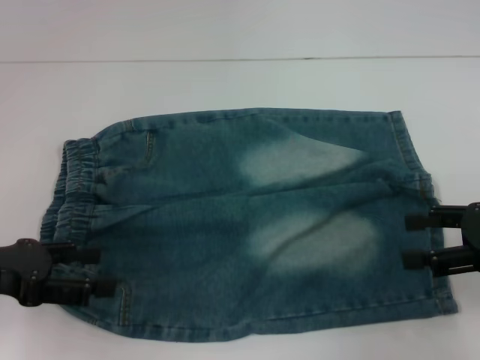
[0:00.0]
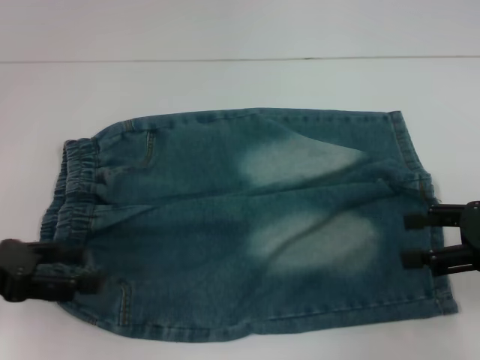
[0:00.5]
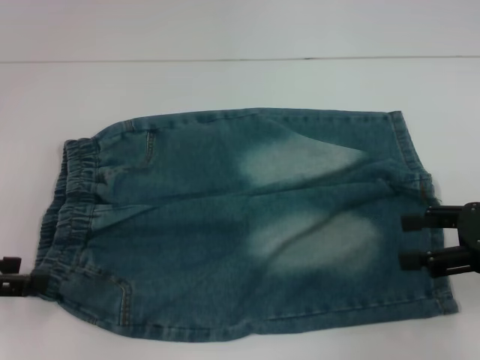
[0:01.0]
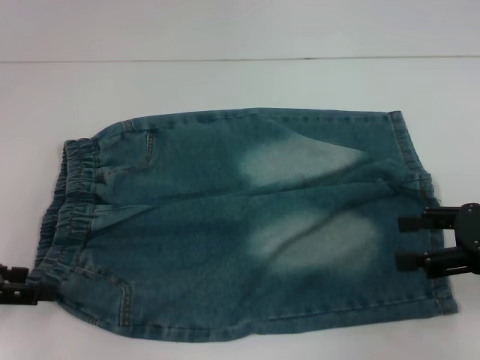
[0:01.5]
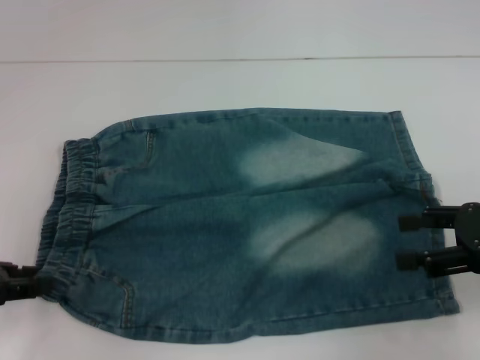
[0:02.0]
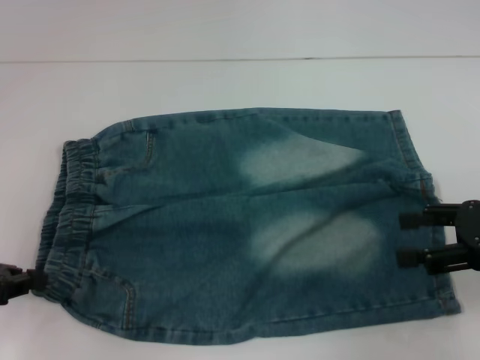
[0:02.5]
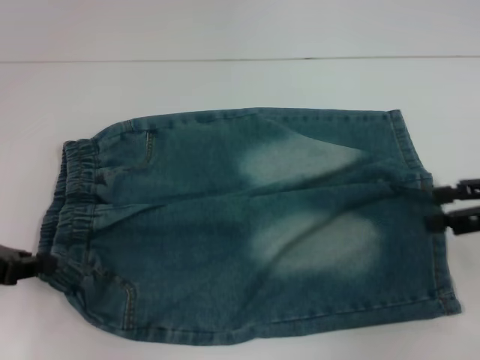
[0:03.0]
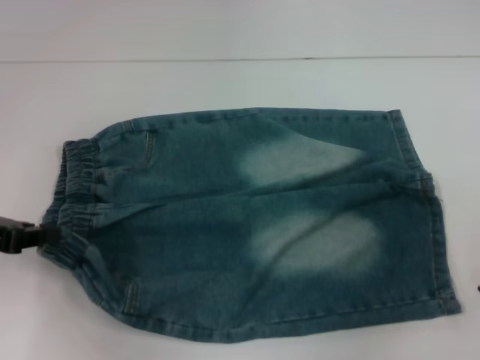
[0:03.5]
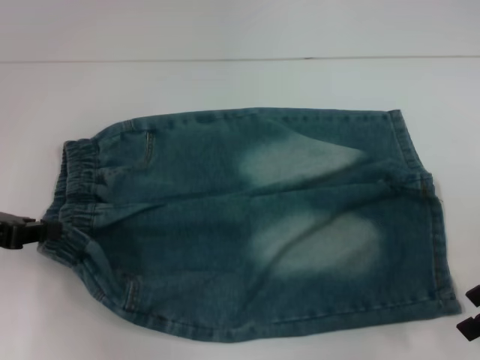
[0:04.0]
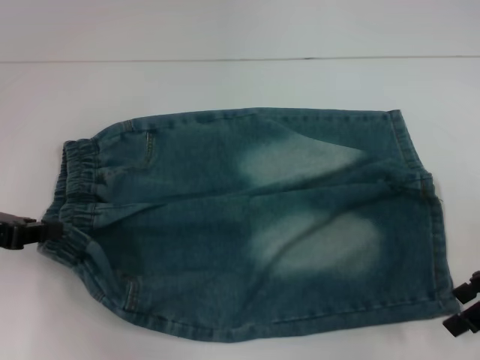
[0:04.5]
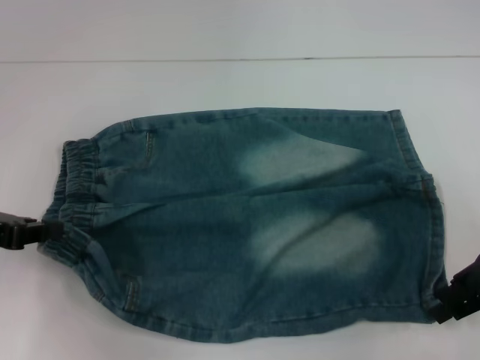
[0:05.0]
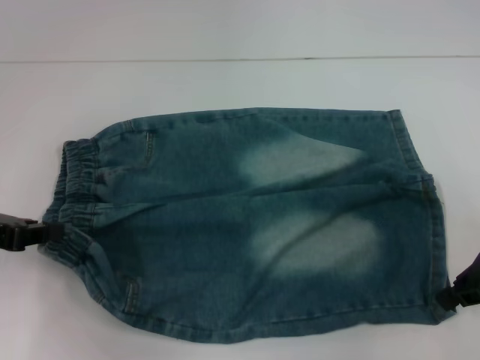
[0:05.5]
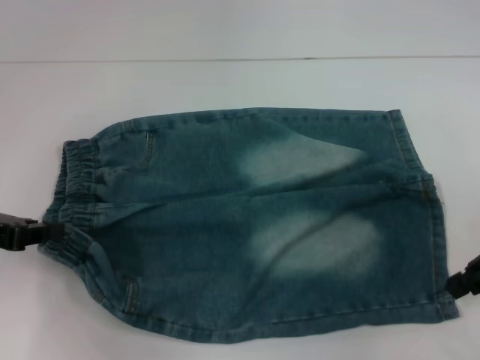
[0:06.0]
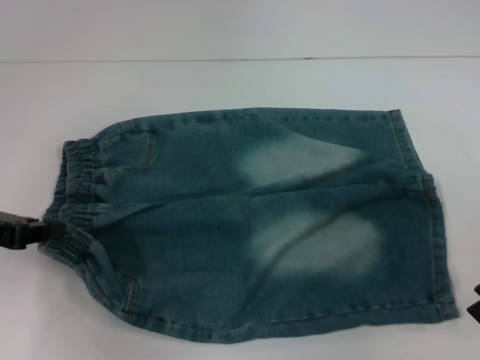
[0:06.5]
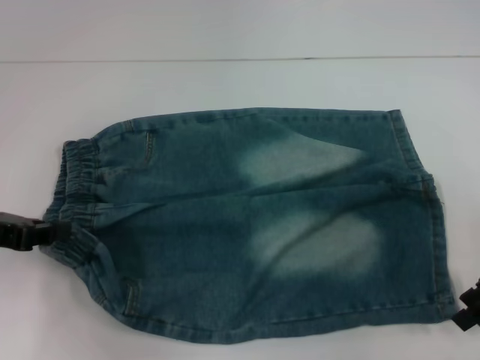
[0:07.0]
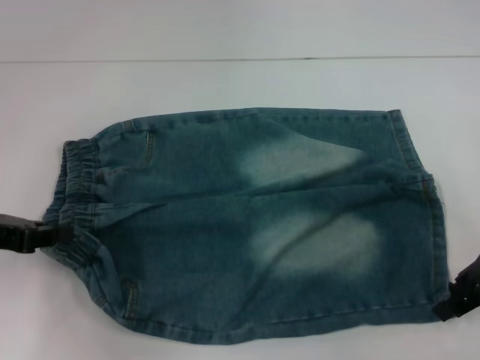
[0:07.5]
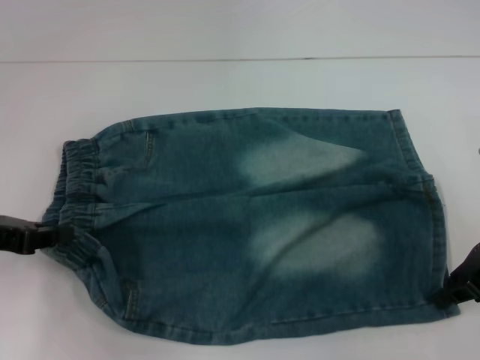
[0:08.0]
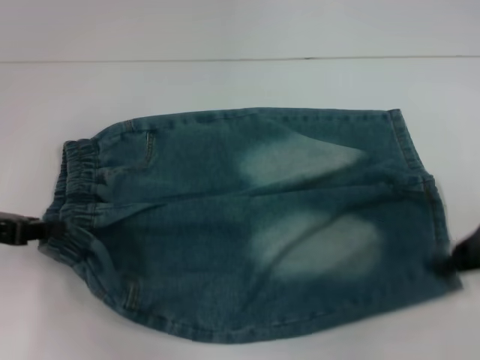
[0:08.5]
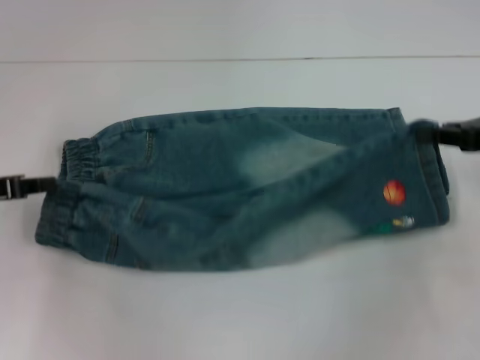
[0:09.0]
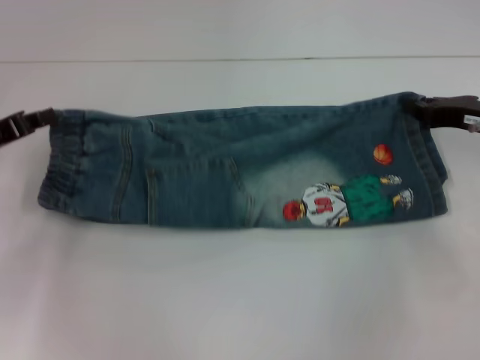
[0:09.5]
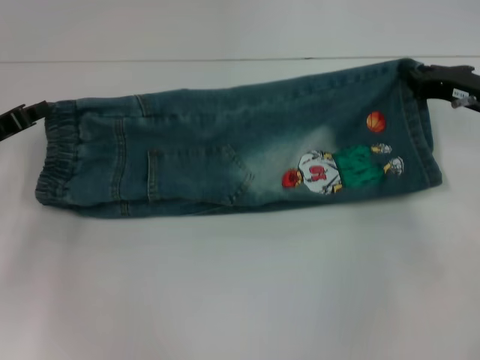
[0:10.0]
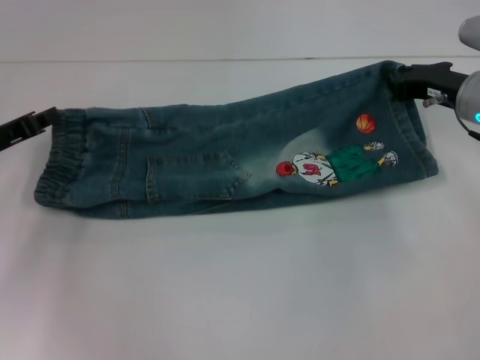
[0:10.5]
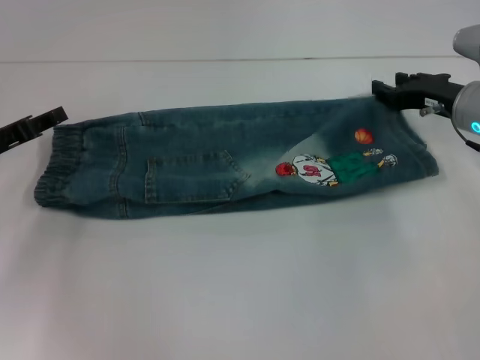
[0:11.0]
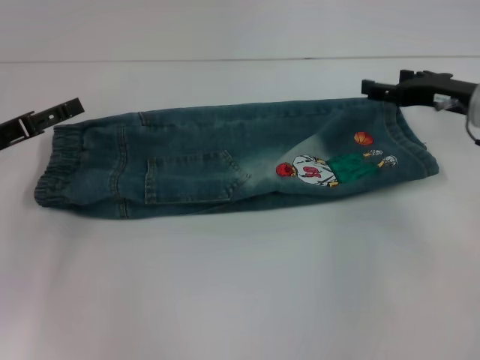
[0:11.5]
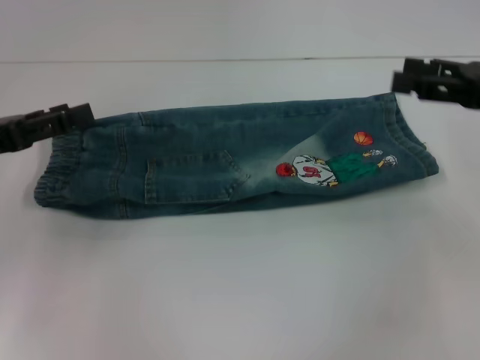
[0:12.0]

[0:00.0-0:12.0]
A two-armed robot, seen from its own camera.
Step, 0:00.0 to 0:02.5: Hold the lower left waistband with your left hand.
Step, 0:03.0 to 0:08.0: Grab the lower right pant leg with your right hand.
Step, 0:08.5 to 0:11.0: Fold upward with your right hand.
0:00.0 to 0:02.0: The left gripper closes its fingers.
0:02.0 to 0:04.0: The left gripper closes.
0:04.0 to 0:06.0: The right gripper closes.
0:06.0 to 0:08.0: The right gripper opens, then closes once more.
0:08.0 to 0:10.0: The grippers both shift forward by about 5 cm.
0:10.0 to 0:12.0: The left gripper ends up approximately 5 cm from where it was, and opens. The right gripper moves upward and backward, about 10 cm, and opens its fingers.

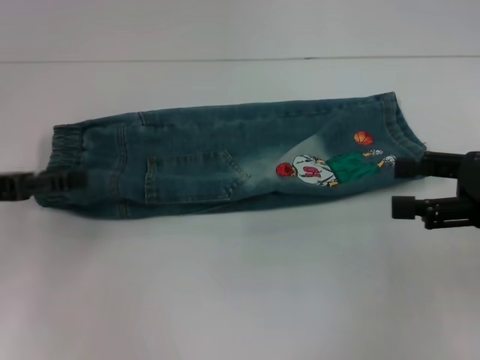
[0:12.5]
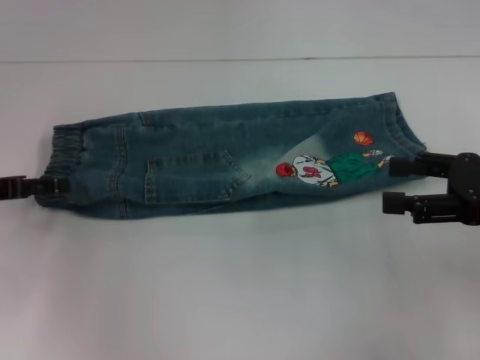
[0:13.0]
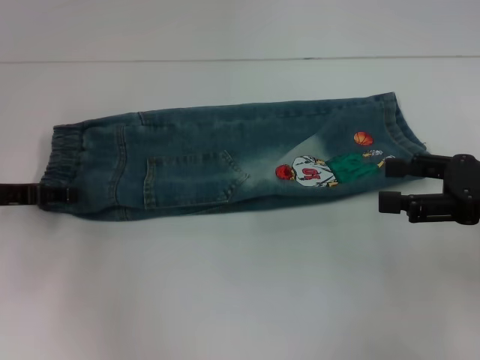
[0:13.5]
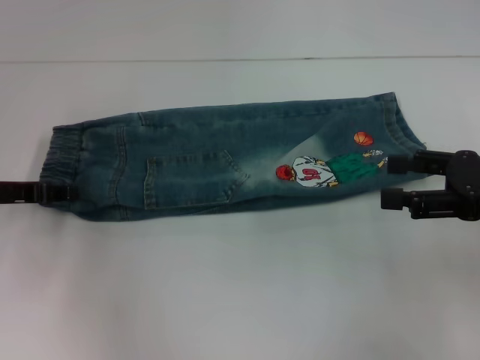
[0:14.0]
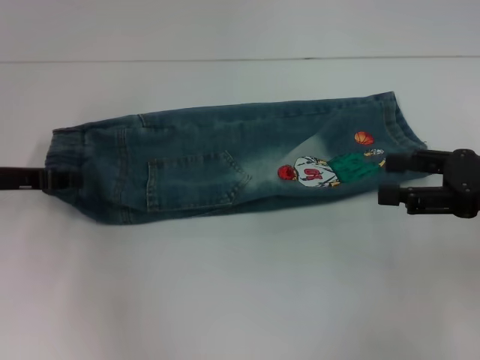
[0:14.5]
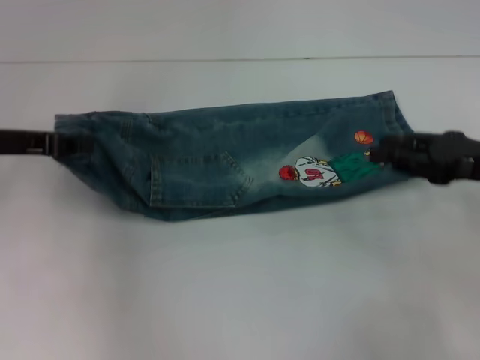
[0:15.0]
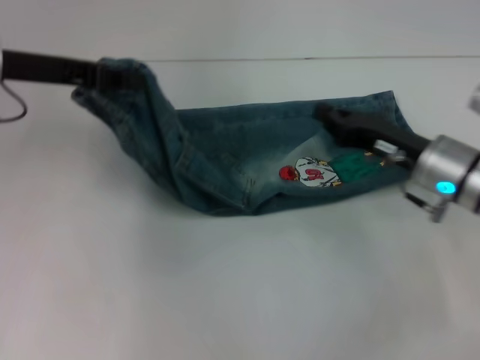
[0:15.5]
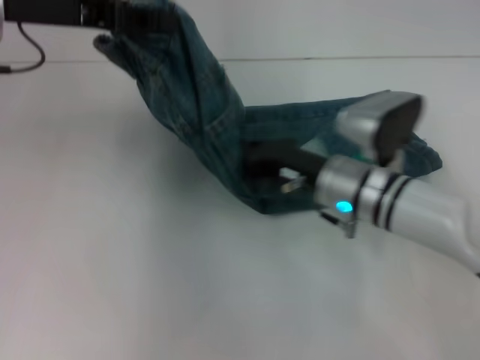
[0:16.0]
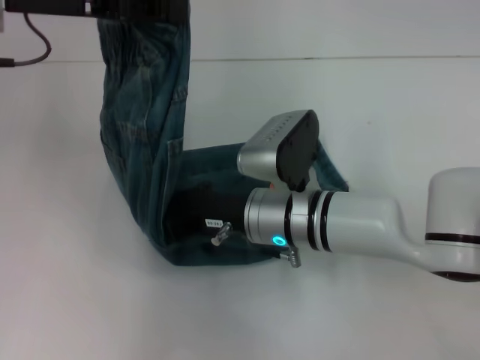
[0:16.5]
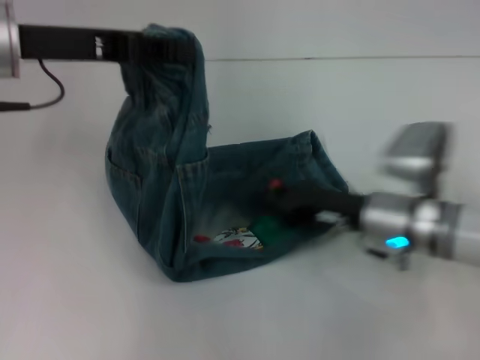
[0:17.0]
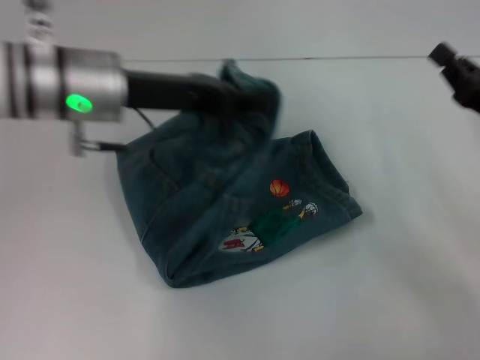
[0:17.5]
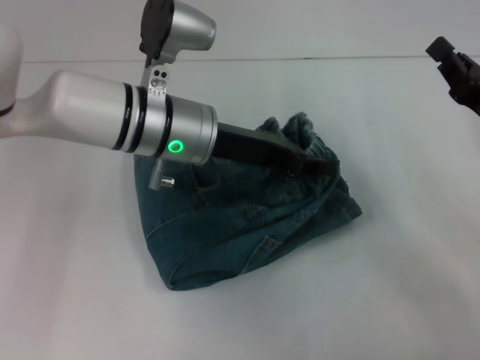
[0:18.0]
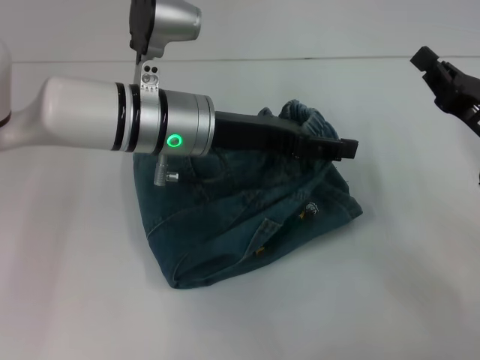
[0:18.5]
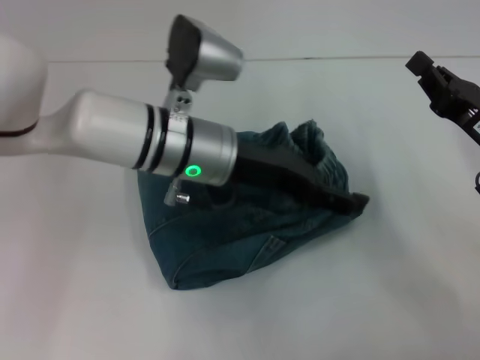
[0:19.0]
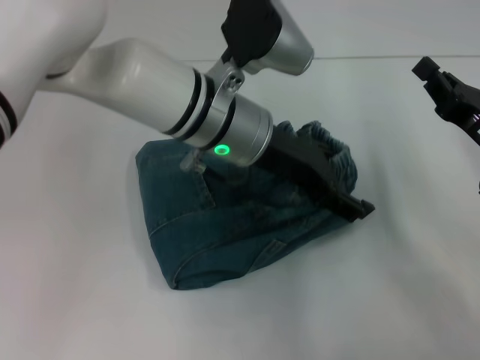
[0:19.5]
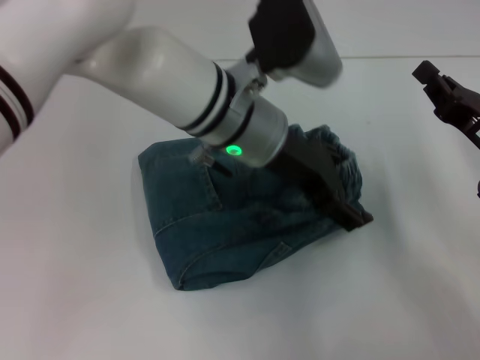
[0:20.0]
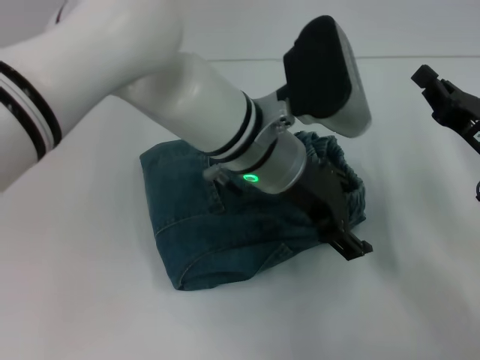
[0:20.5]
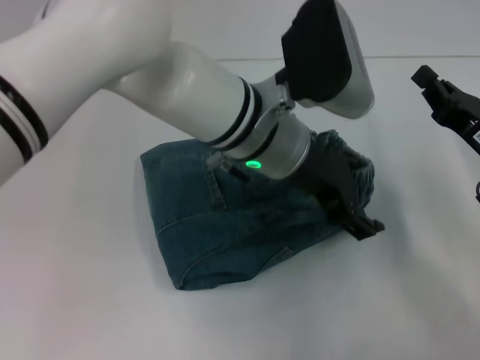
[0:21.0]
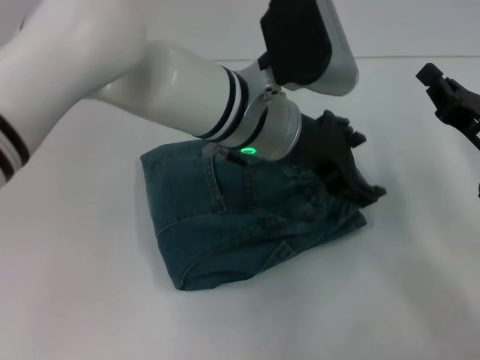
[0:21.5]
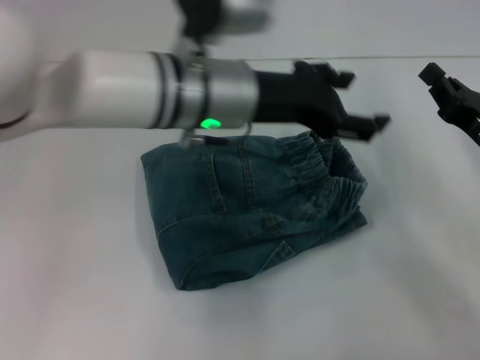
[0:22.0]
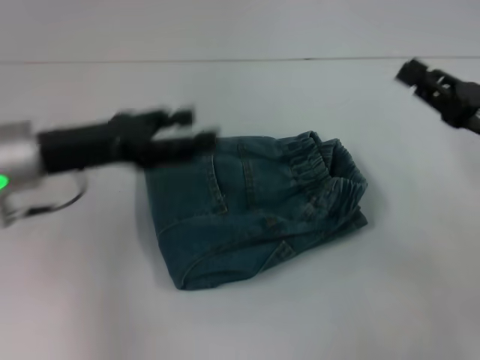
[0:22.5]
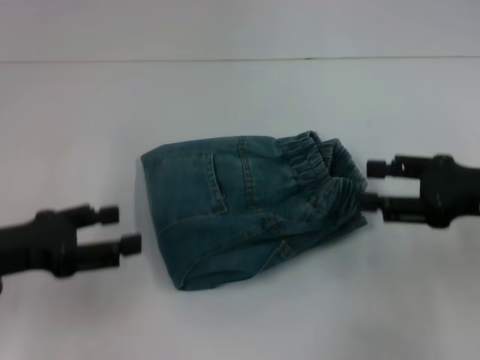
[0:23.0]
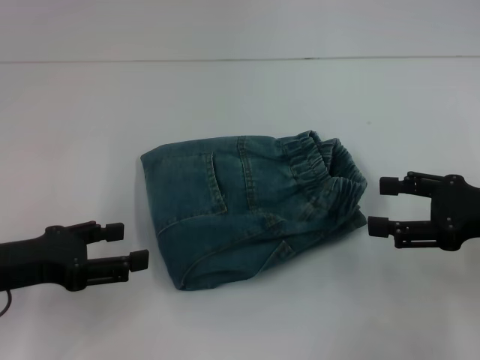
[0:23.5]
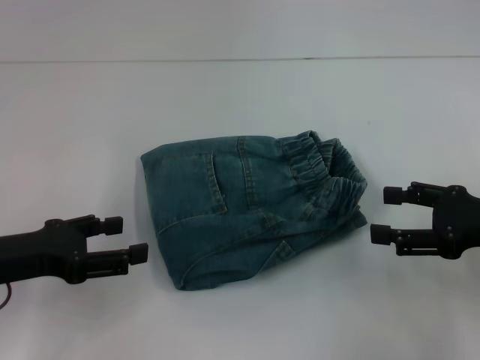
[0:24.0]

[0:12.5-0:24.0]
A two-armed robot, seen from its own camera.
Step, 0:12.5 to 0:14.5: Hold the waistband with your left hand.
Step, 0:15.0 to 0:16.5: Press the middle of the pants with your right hand.
Step, 0:17.0 to 0:21.5: Fold to the right with your left hand.
0:12.5 to 0:14.5: The left gripper shifts by roughly 5 cm, and closes its fingers.
0:14.5 to 0:16.5: The left gripper travels upward and to the right by approximately 15 cm; the right gripper shifts some 25 cm to the left, and closes its fingers.
0:16.5 to 0:18.5: The right gripper goes approximately 25 cm to the right, while the left gripper travels to the right and downward by some 20 cm, and opens.
0:18.5 to 0:20.0: The left gripper moves to the right, about 5 cm.
0:22.0 to 0:24.0: The left gripper moves to the left and backward, some 25 cm. Meanwhile the right gripper moves some 5 cm, and opens up.

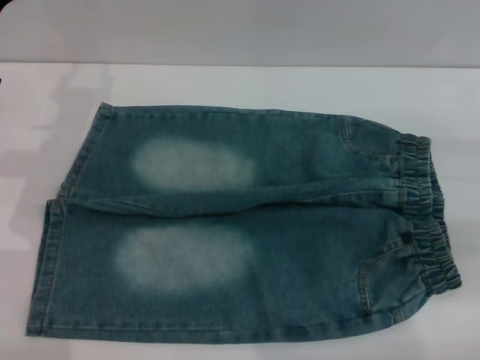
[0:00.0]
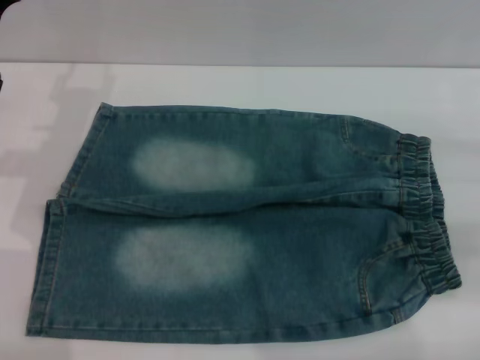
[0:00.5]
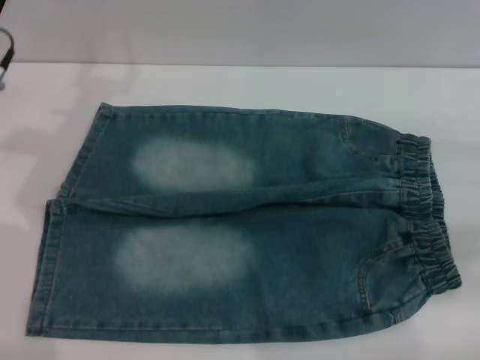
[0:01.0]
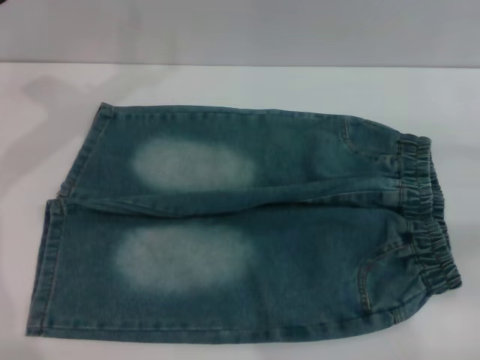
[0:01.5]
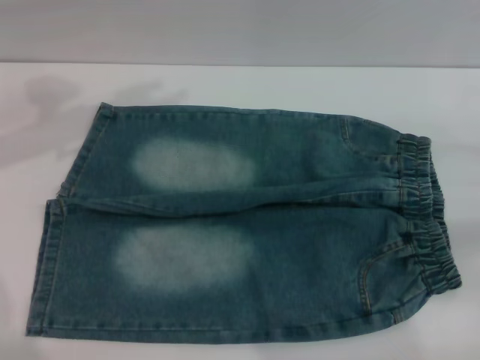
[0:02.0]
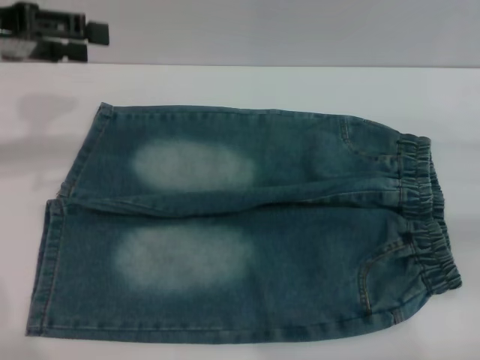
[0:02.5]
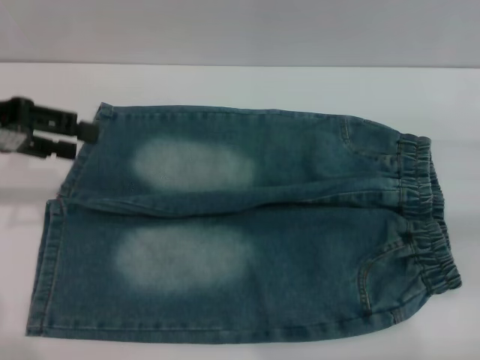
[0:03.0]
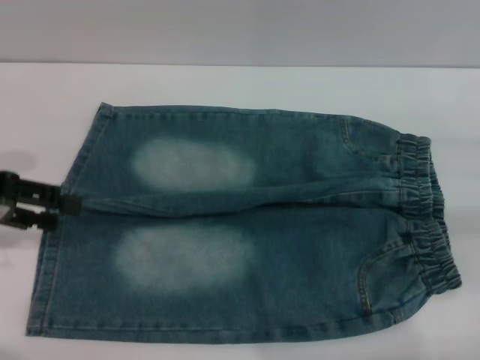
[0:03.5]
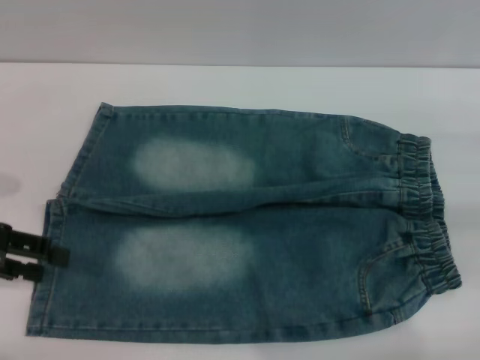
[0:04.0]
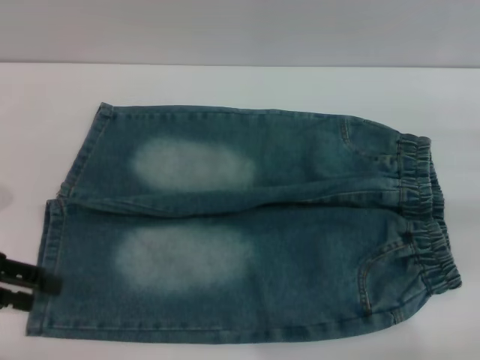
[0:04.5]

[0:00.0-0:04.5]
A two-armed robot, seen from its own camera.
0:02.0 to 0:04.5: The left gripper goes about 20 cm downward, backward and to the left.
